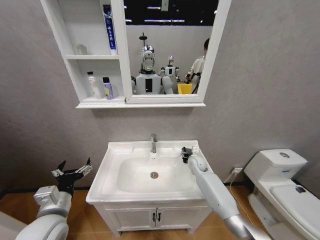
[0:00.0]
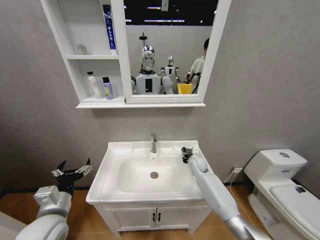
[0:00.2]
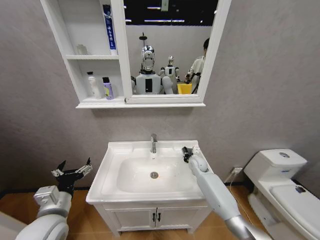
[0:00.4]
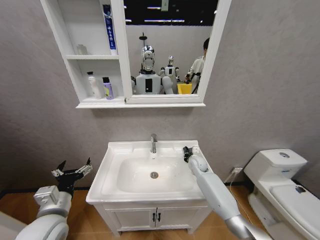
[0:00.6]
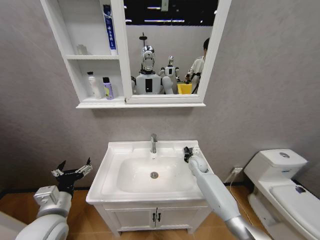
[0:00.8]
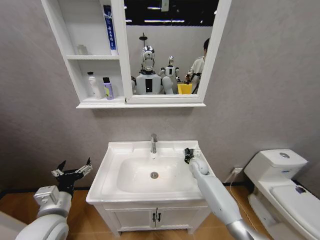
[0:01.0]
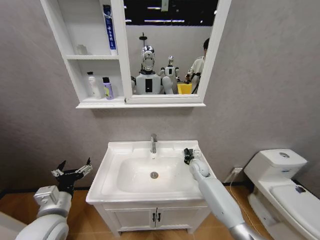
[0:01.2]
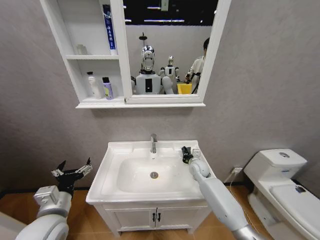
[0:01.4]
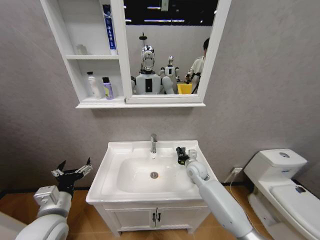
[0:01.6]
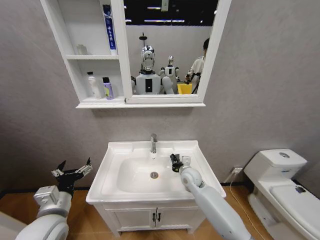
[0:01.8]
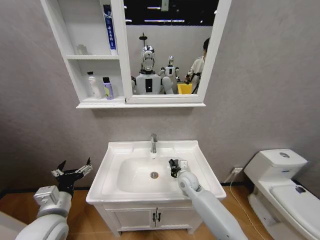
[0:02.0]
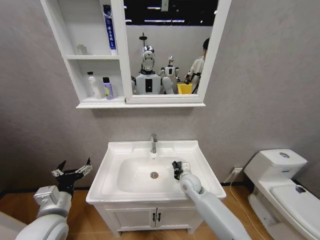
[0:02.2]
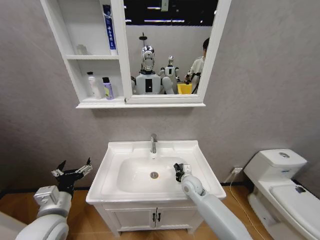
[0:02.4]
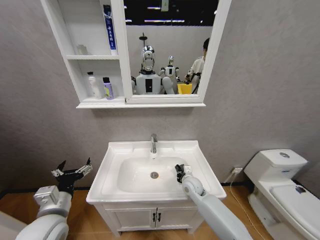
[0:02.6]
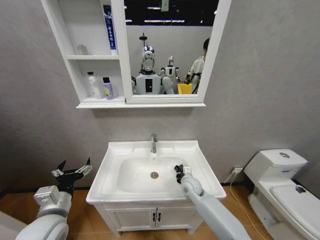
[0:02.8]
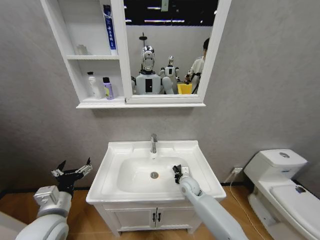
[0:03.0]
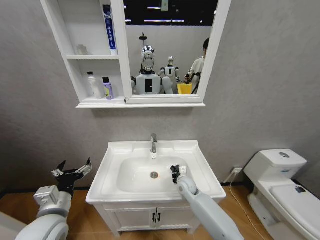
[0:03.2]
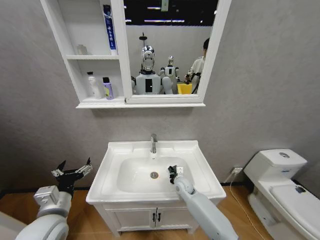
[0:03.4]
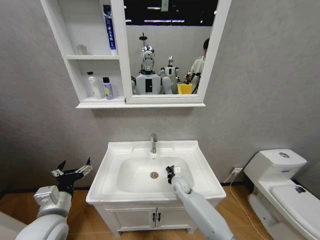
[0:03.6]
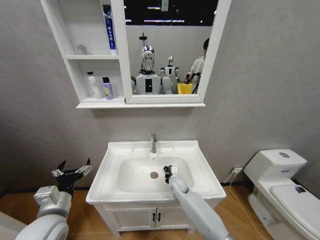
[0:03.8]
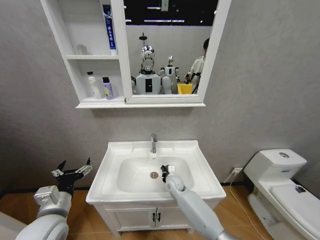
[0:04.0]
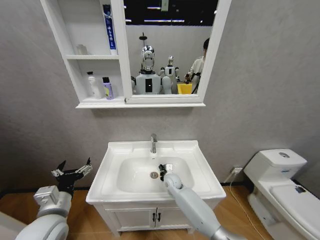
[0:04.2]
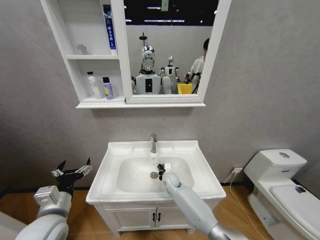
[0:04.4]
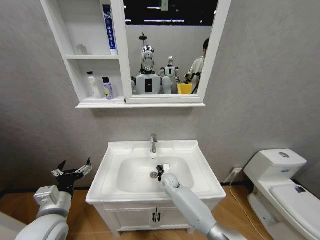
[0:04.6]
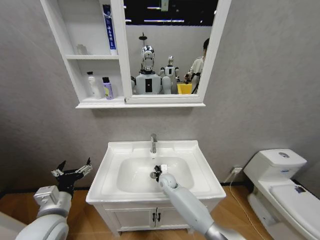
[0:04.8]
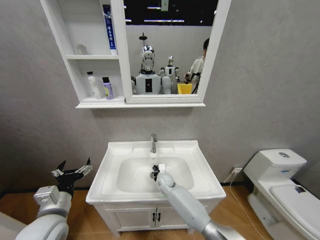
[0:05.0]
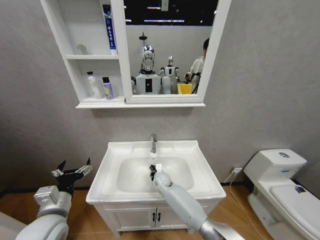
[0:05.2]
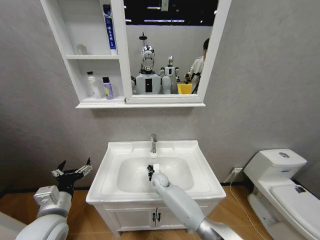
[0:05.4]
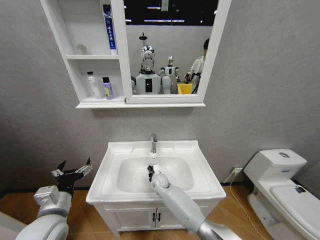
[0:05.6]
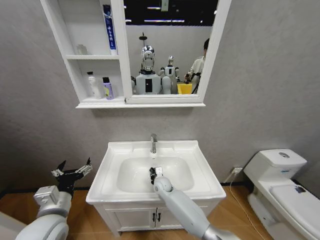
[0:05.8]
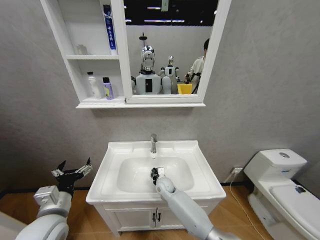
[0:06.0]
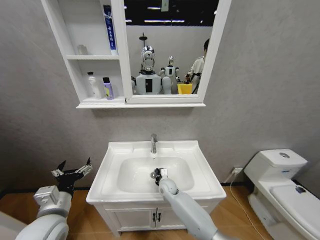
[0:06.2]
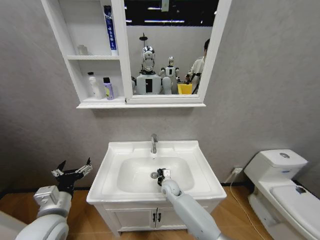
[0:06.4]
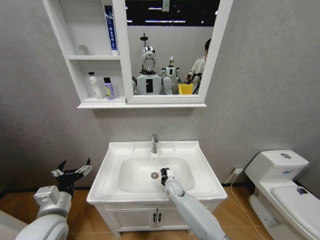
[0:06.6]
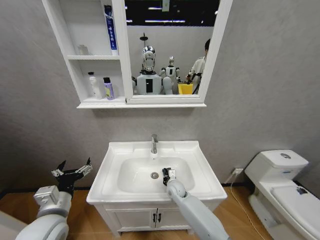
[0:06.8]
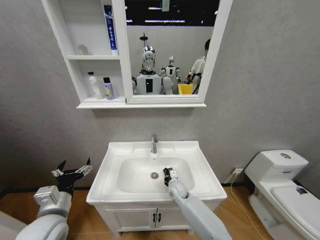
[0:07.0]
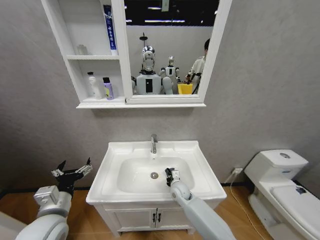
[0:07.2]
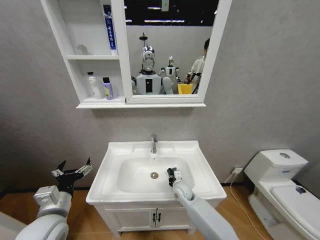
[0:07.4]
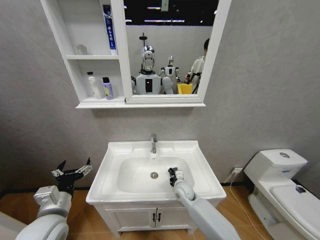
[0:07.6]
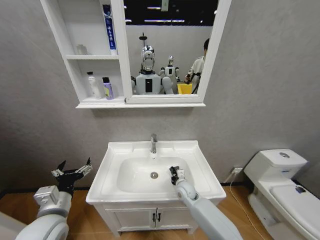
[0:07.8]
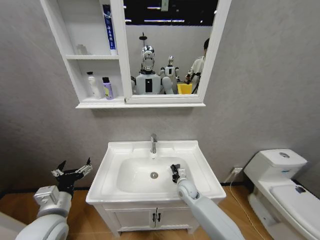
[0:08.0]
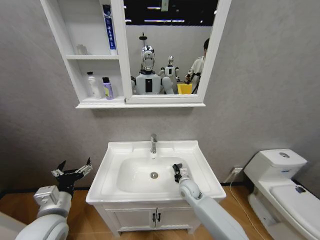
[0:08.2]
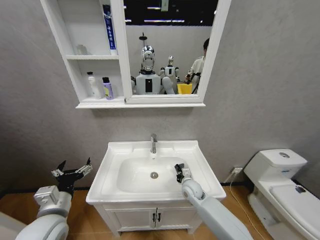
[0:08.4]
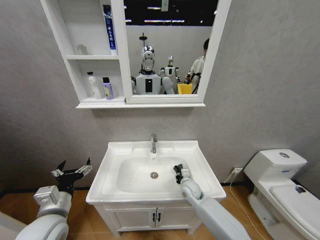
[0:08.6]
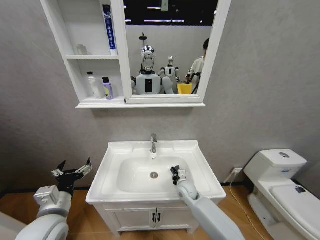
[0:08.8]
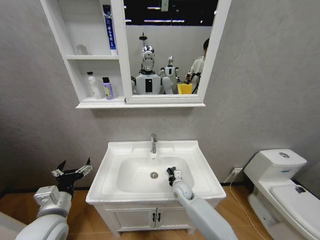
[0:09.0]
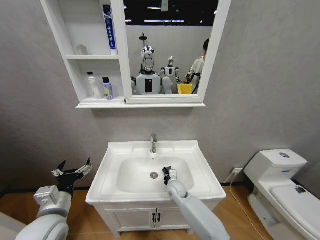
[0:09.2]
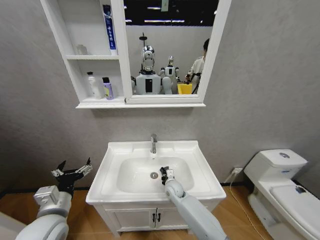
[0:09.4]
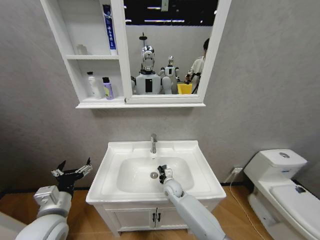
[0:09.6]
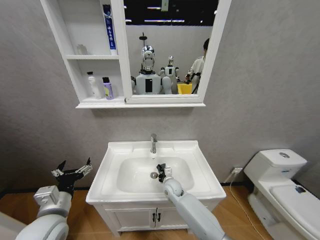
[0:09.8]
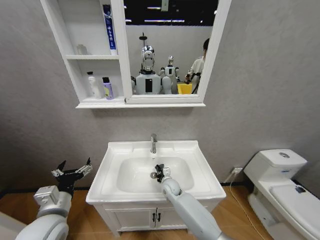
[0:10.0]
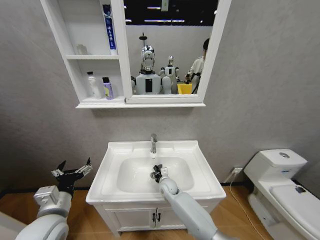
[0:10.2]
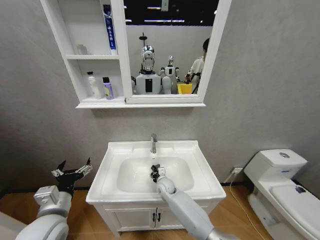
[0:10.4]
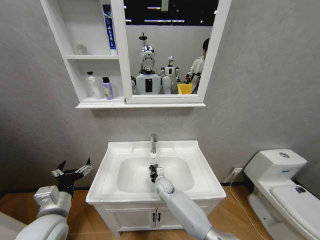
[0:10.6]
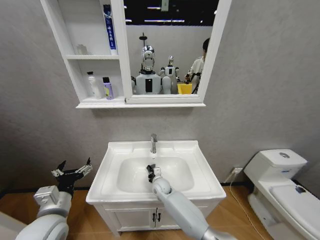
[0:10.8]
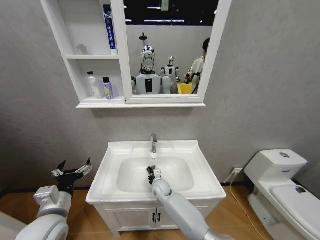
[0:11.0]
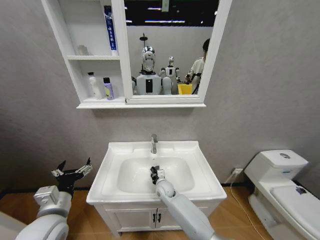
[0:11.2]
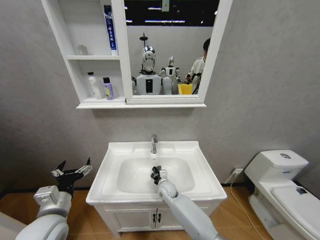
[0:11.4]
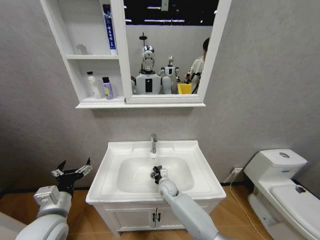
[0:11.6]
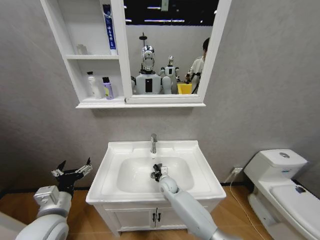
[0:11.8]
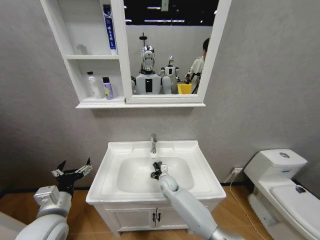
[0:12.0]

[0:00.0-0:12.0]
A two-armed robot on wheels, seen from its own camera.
Task of the whole recording: Move facial cleanser and shampoo from washbasin to cabinet, then wipe washbasin with towel.
0:00.0 to 0:01.6: The right gripper is displaced backward by about 5 cm, and closes.
0:01.6 to 0:03.0: The right gripper heads downward and backward, covering approximately 10 cm.
0:03.0 to 0:04.4: The right gripper is displaced to the left by about 10 cm.
0:06.0 to 0:07.6: The right gripper goes about 10 cm to the right.
0:09.0 to 0:10.4: The right gripper heads to the left, covering about 5 cm.
0:10.4 to 0:12.0: The grippers make only small movements.

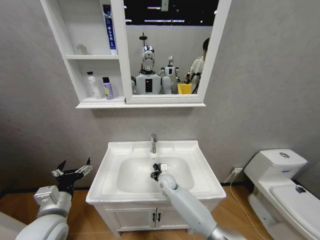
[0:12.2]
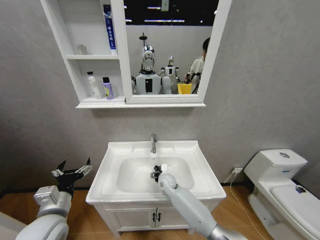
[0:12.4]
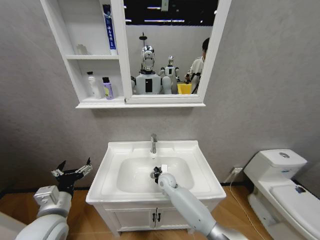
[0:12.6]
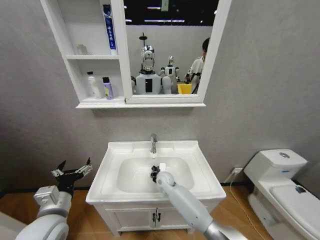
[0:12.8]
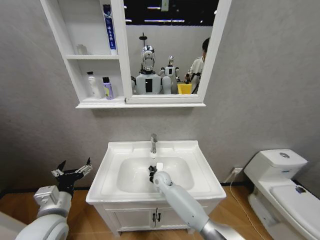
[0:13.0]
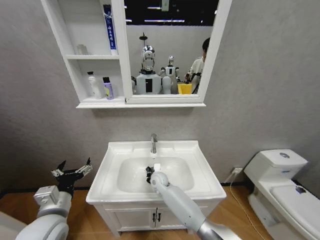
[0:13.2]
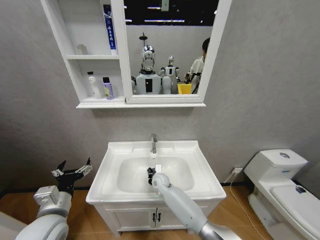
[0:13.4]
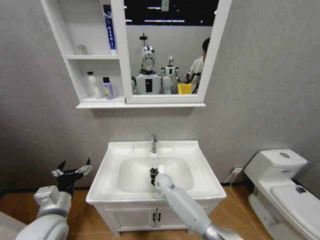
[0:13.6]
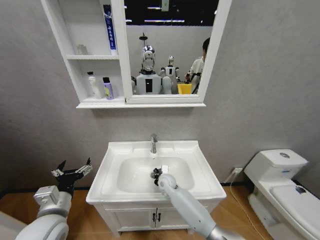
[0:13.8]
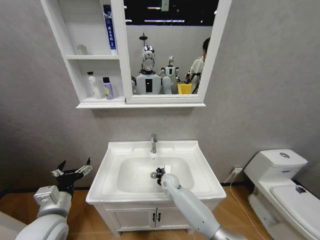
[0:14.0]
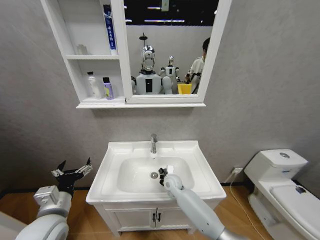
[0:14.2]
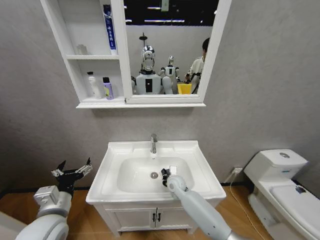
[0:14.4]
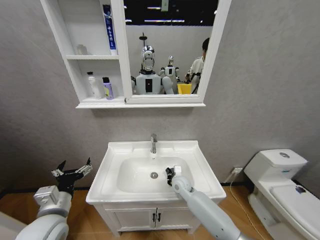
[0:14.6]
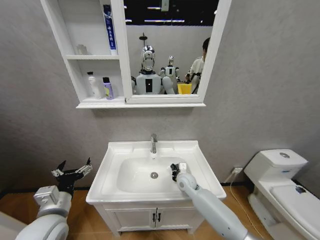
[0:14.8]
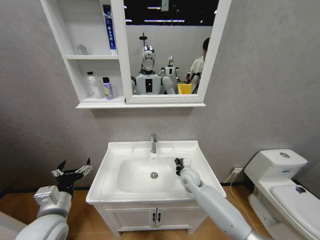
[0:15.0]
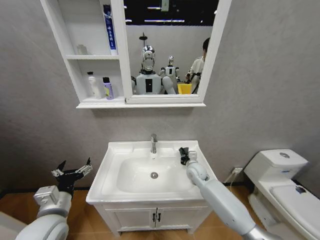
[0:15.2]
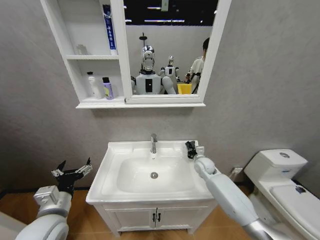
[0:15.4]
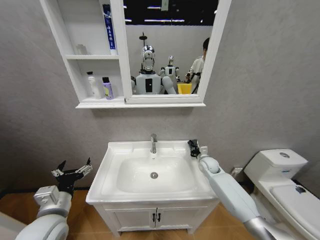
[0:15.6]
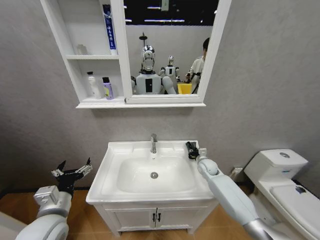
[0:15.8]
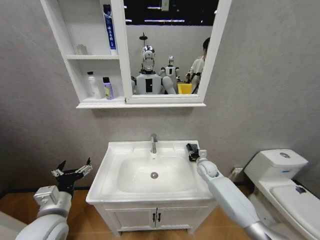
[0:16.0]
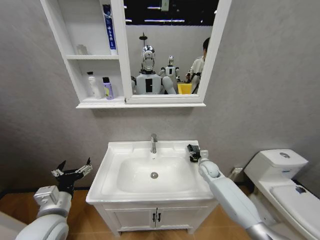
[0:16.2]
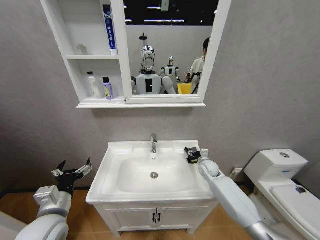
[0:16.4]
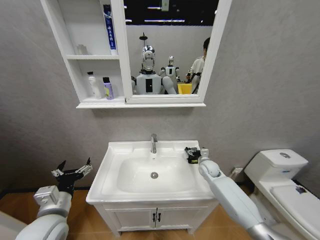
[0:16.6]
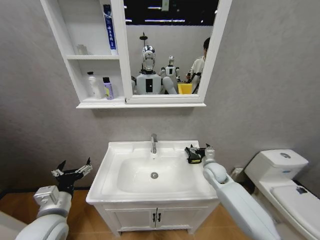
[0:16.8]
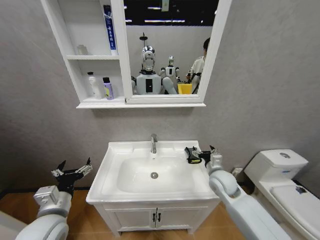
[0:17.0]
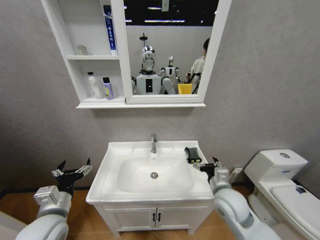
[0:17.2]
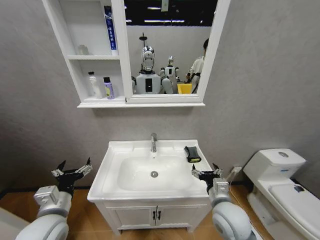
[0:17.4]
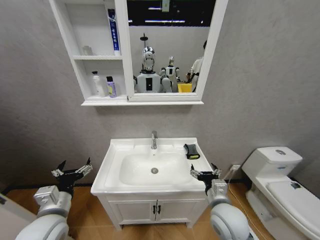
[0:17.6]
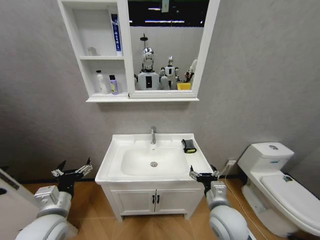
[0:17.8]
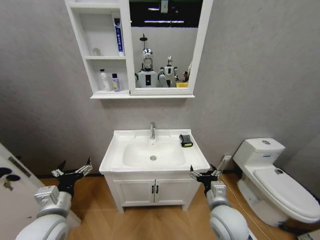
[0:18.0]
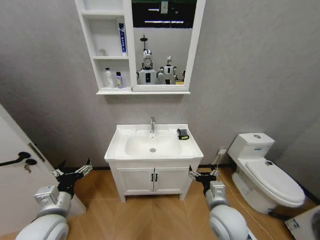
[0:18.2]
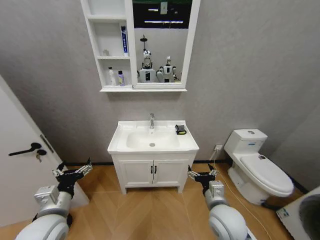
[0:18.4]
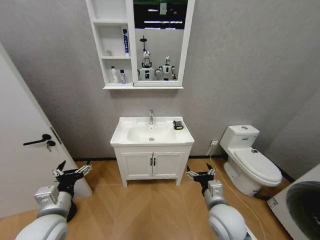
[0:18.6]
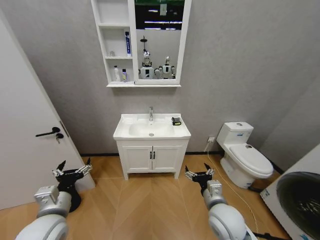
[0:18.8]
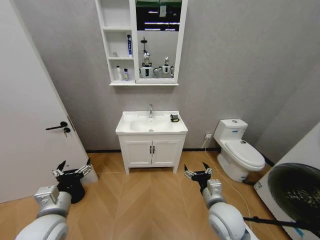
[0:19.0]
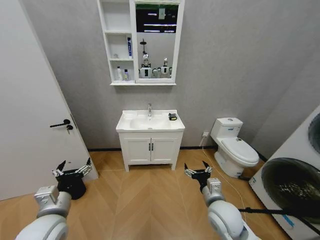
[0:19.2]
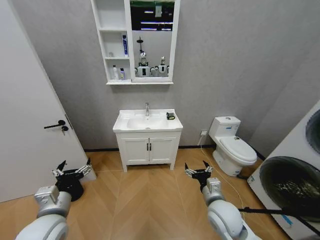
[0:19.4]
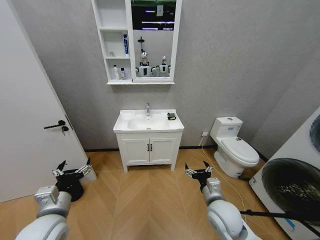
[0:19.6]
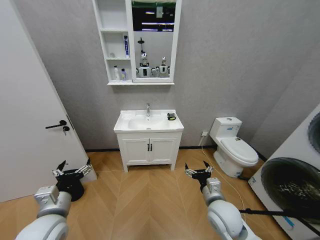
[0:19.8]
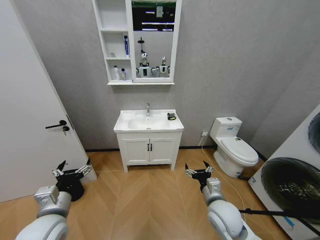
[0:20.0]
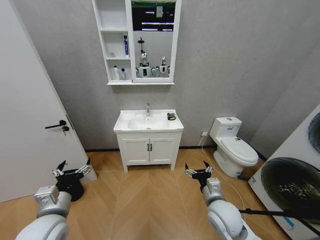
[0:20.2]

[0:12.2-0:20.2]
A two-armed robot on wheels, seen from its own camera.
Task of the whole recording: Move facial cleanser and shampoo from washbasin to cabinet, then wipe washbasin with towel.
0:13.8 to 0:15.4: The right gripper shifts approximately 20 cm to the right and upward.
0:15.4 to 0:17.0: The right gripper shifts approximately 15 cm backward and upward, and opens up.
0:17.0 to 0:18.6: The right gripper shifts roughly 15 cm backward and to the left.
